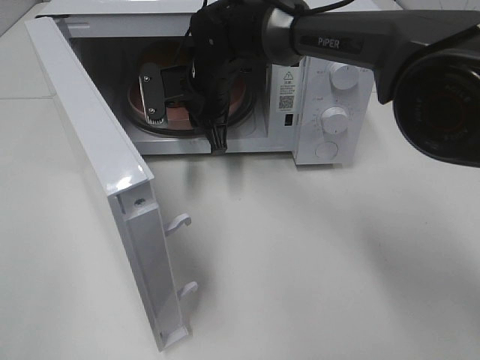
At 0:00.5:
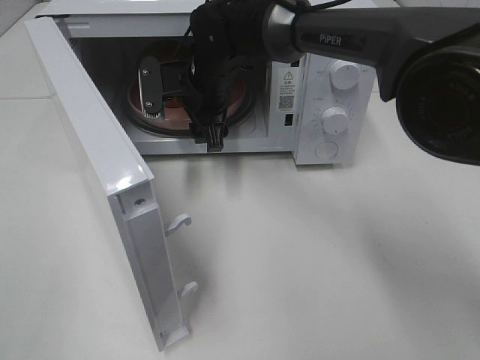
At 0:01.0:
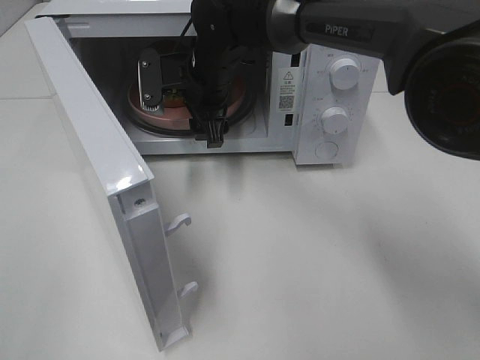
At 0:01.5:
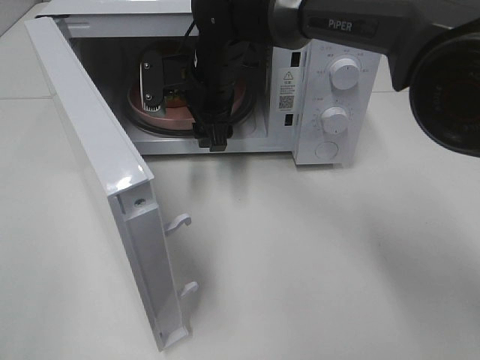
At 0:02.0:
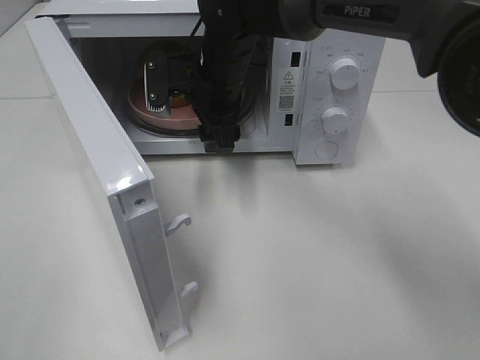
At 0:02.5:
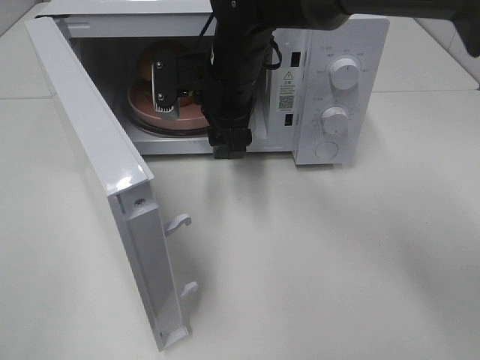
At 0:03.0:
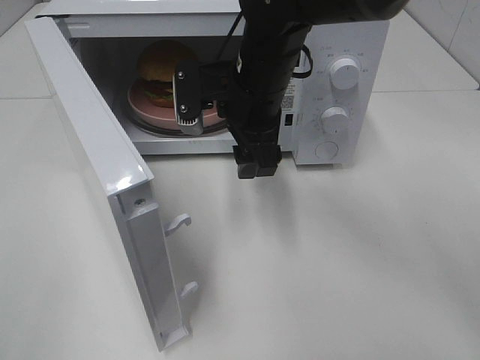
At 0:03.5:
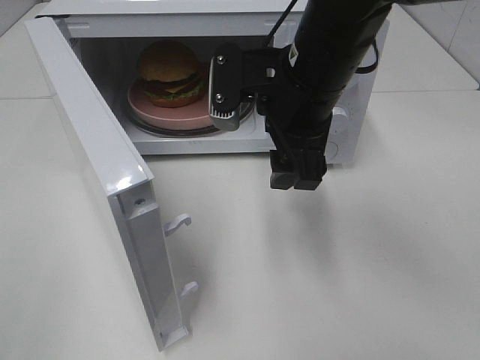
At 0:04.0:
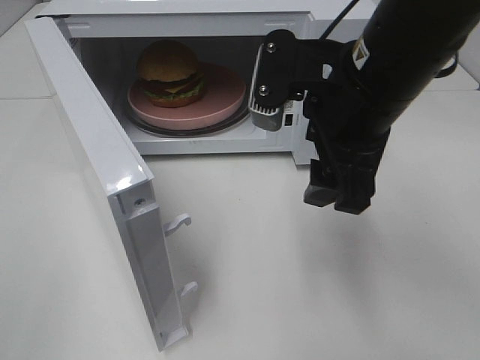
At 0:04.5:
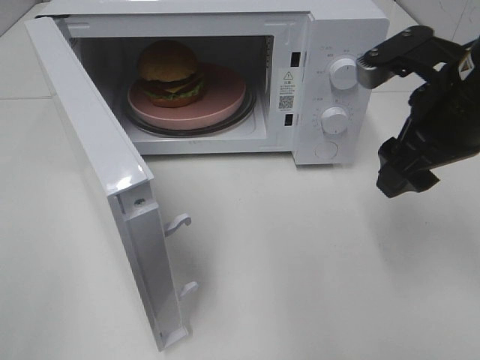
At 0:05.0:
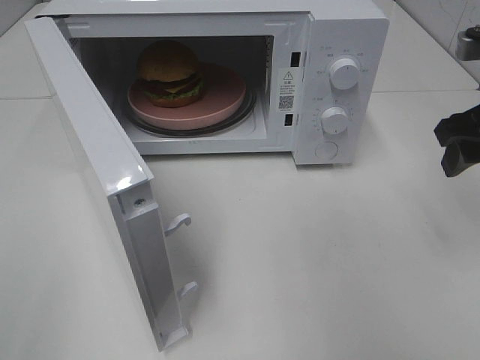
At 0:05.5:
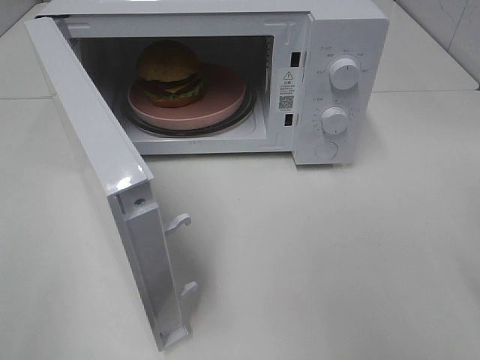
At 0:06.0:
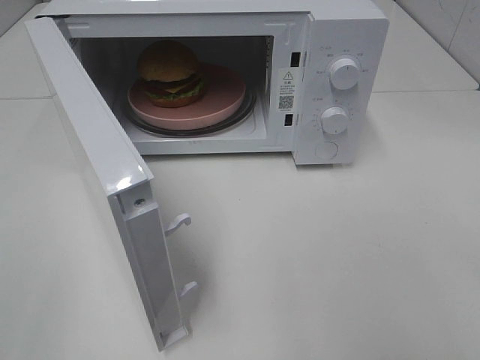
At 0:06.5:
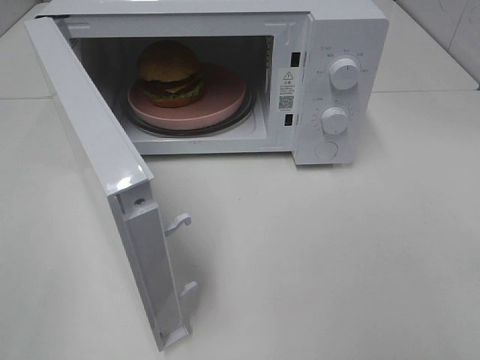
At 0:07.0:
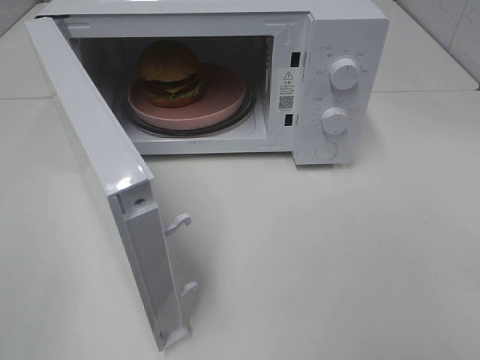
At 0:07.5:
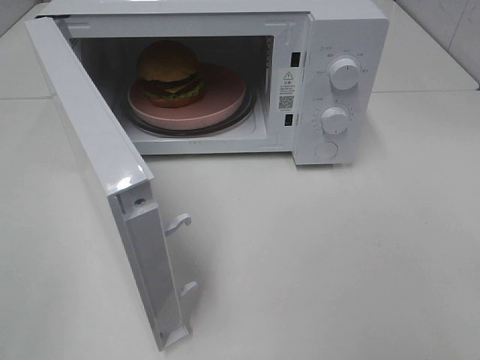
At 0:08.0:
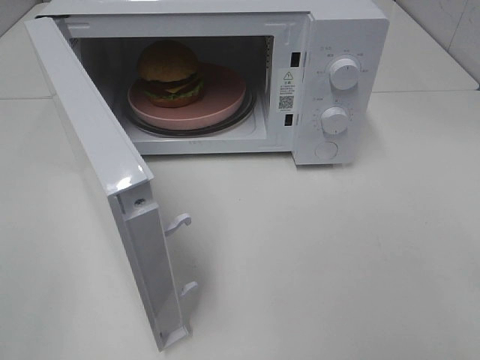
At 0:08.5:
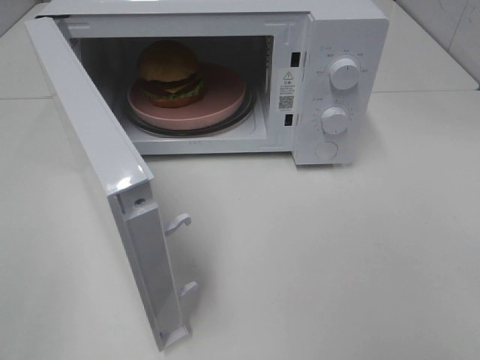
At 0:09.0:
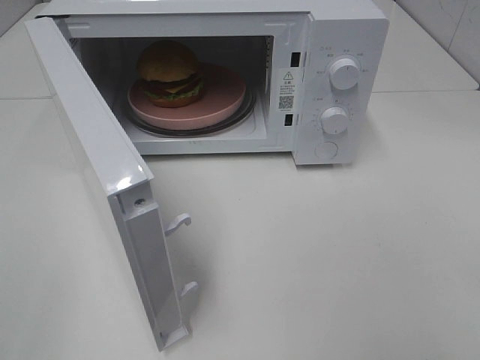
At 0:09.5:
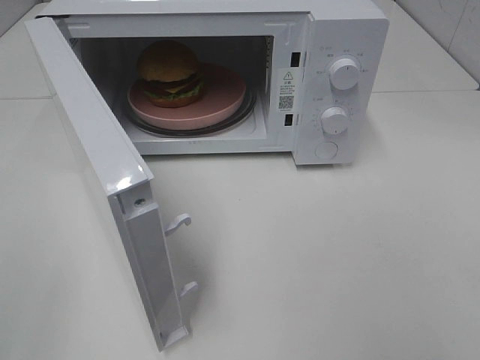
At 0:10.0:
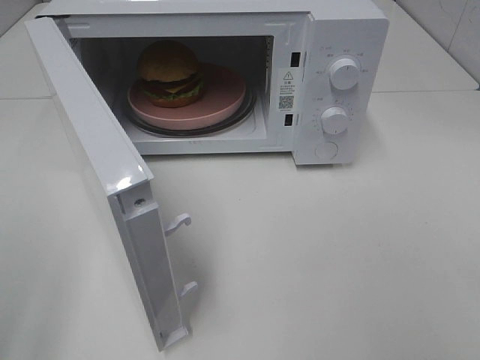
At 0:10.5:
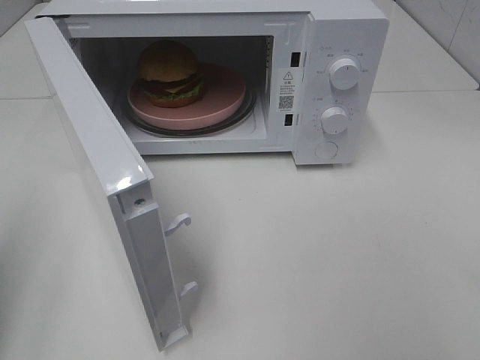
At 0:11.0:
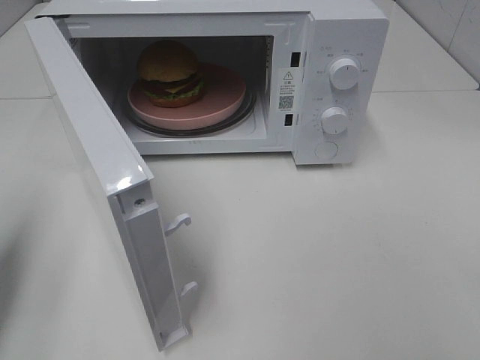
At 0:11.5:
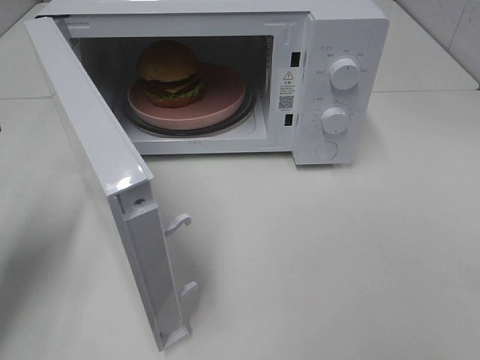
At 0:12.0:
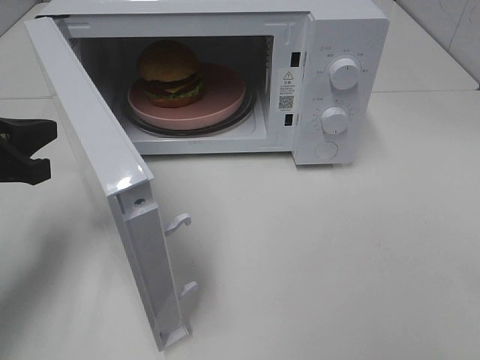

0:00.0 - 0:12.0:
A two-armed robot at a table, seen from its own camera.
Task of the whole recording: Heat the burger.
0:00.0 - 0:02.0: The right gripper opens its fingers.
0:02.0 - 0:04.0: The right gripper is displaced backward, to the right and upward by some 20 cm.
0:04.0 - 0:06.0: The right gripper is displaced backward and to the right by about 25 cm.
0:10.0 - 0:12.0: The left gripper is displaced forward and downward by approximately 25 cm, and closes.

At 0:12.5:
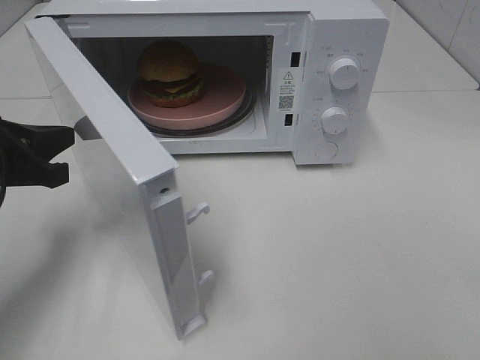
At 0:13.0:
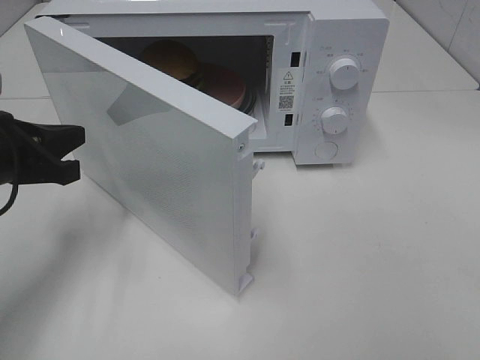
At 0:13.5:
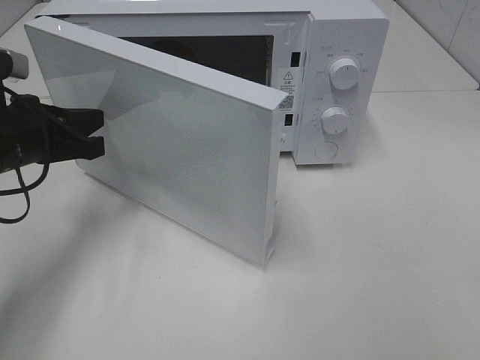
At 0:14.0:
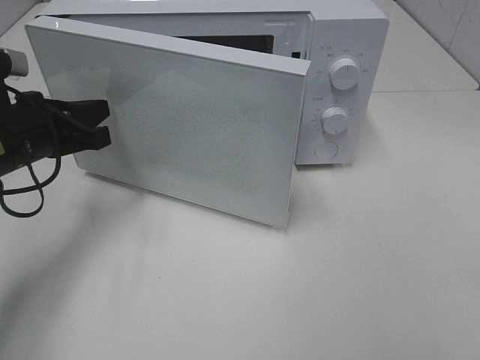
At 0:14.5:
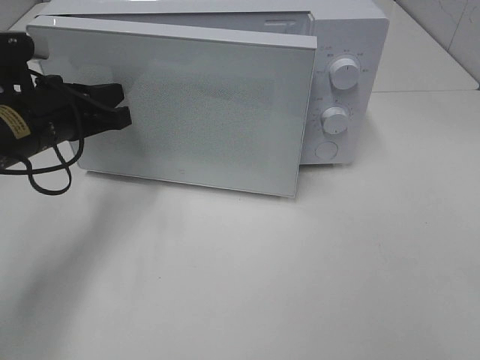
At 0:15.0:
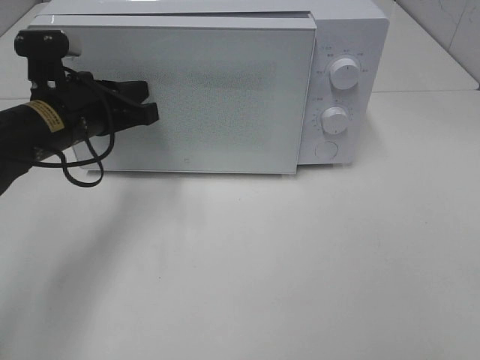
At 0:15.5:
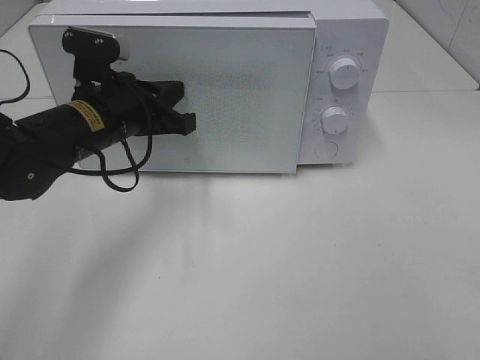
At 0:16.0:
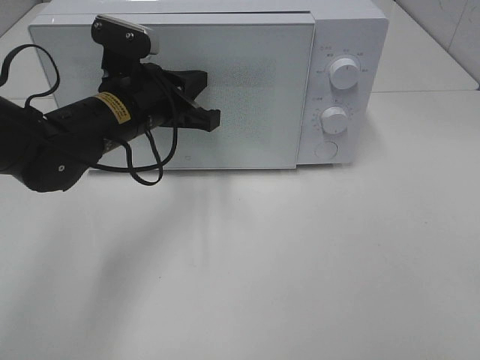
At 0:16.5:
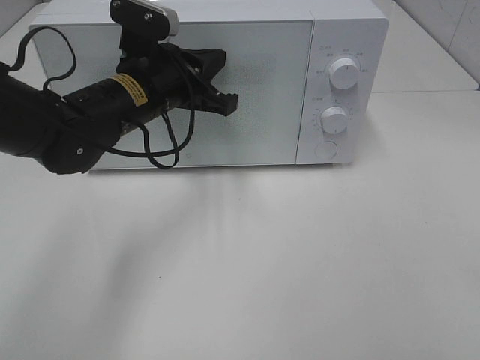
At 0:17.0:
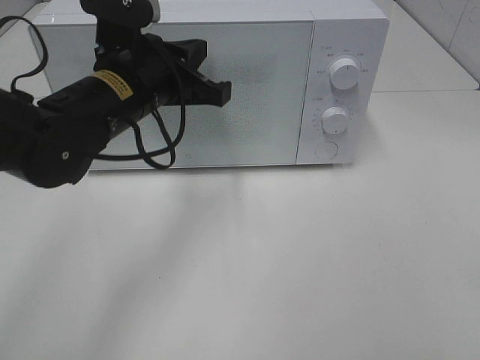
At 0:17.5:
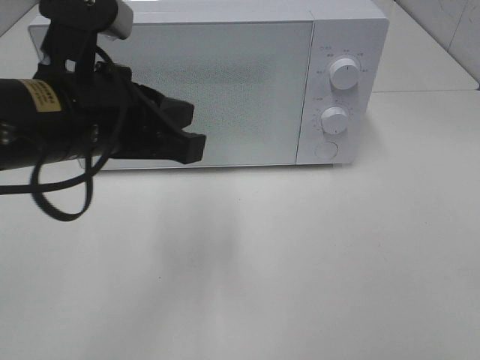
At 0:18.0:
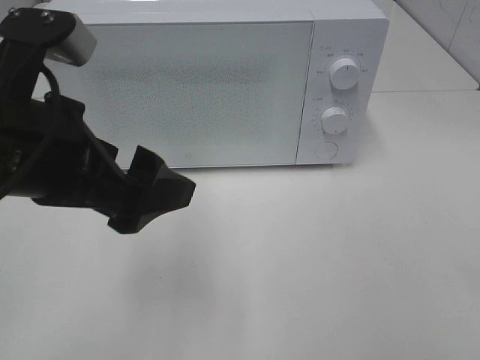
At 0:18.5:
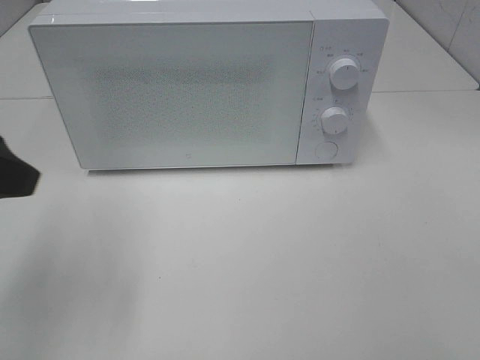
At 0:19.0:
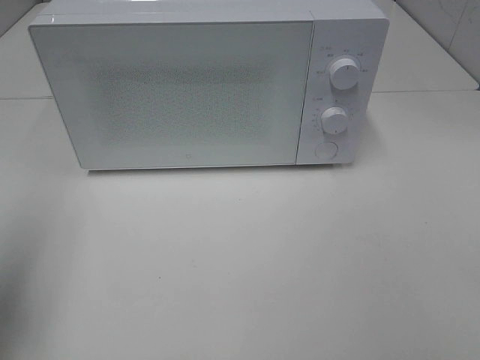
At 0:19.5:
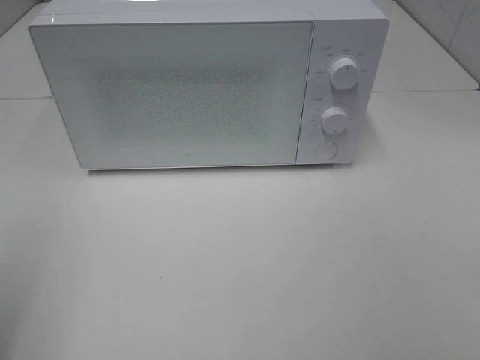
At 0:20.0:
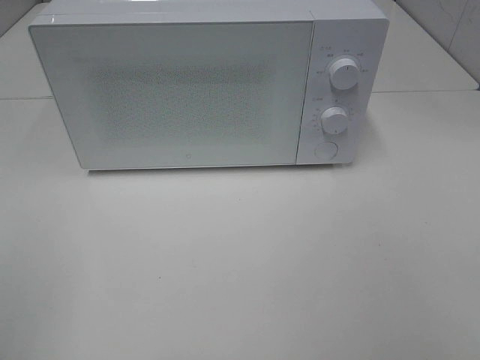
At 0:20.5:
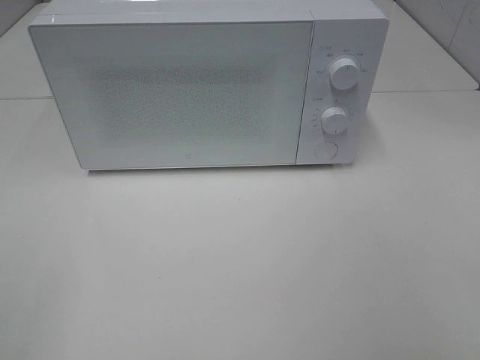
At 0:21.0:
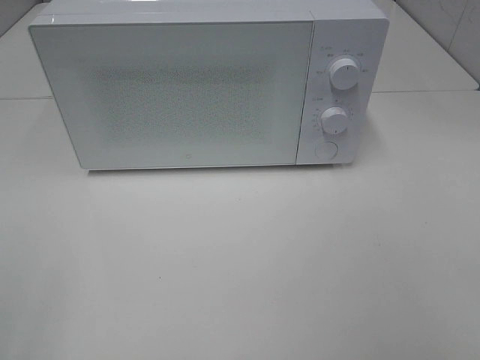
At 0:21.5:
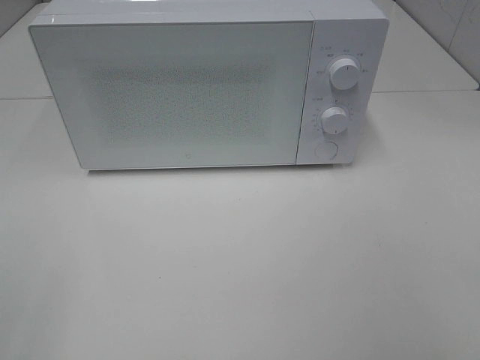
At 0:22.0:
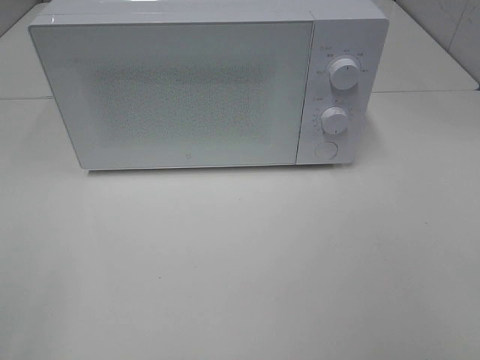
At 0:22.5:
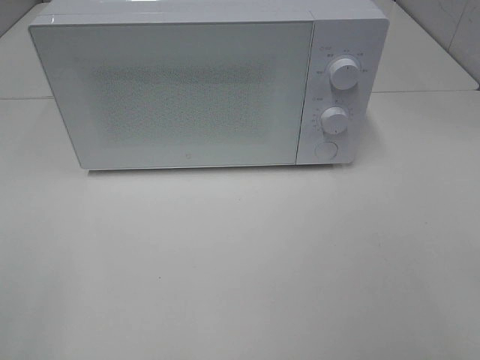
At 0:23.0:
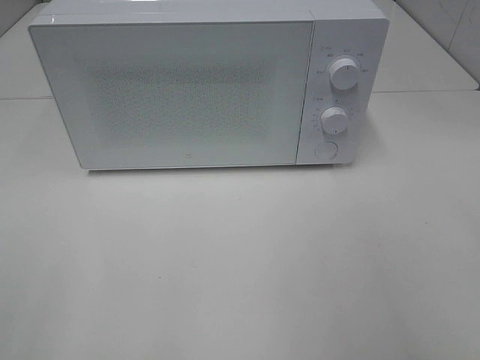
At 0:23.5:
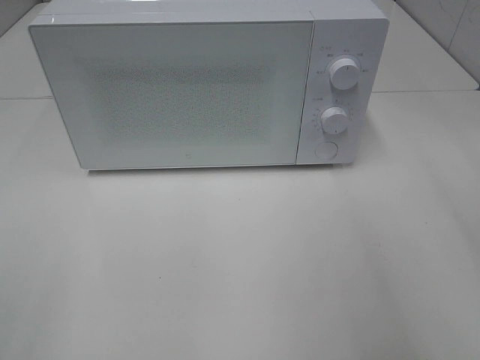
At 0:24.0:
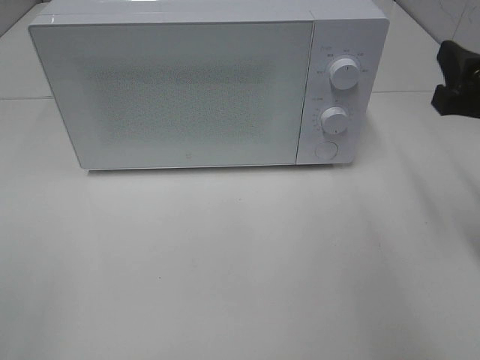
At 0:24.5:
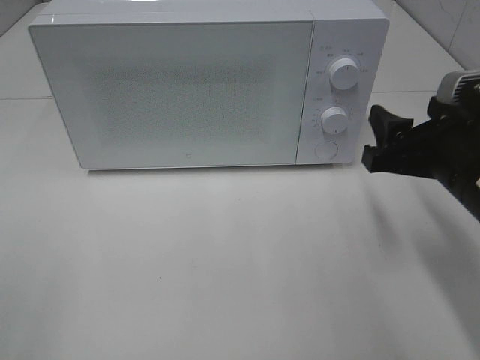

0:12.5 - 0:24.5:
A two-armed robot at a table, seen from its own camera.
Task of the whole recording: Heat the burger.
Step, 0:12.5 - 0:17.5: Left hand: close the microwave door.
0:12.5 - 0:14.5: The left gripper shifts some 5 cm forward.
0:14.5 - 0:16.5: The left gripper heads to the right, covering roughly 10 cm.
0:16.5 - 0:18.5: The left gripper moves backward, to the left and upward, approximately 25 cm, and opens.
0:18.5 - 0:20.5: The left gripper travels backward by about 20 cm.
0:20.5 - 0:22.5: The two grippers keep their place.
0:22.5 - 0:24.5: The right gripper heads forward and downward, covering approximately 25 cm.

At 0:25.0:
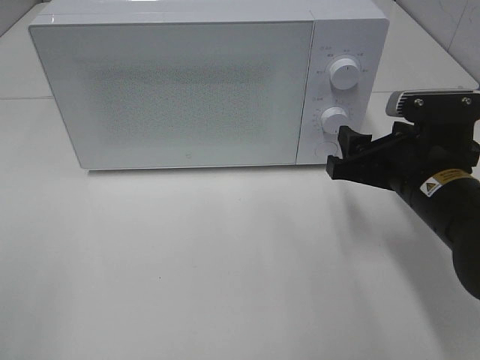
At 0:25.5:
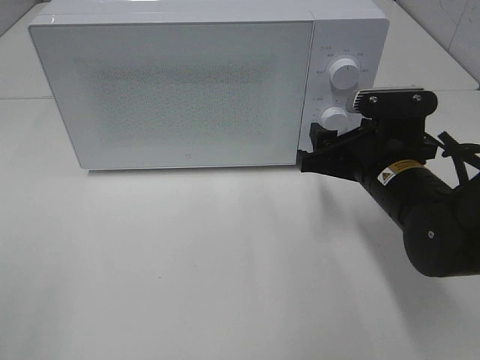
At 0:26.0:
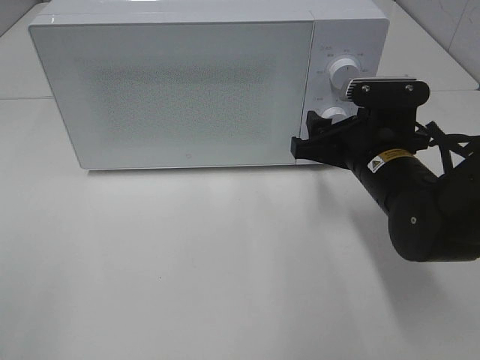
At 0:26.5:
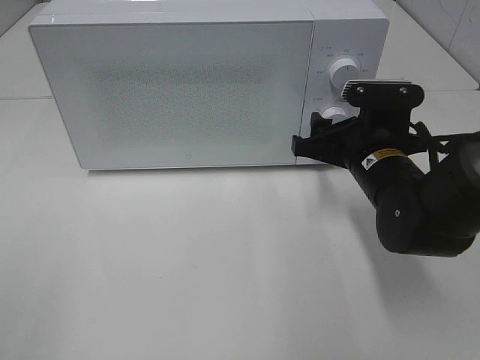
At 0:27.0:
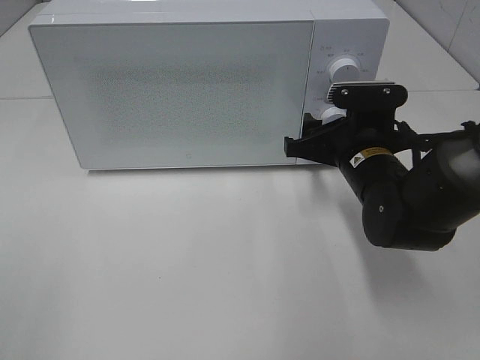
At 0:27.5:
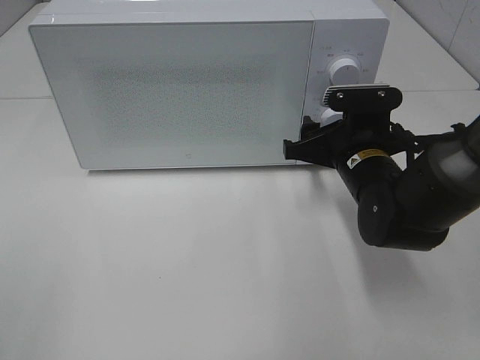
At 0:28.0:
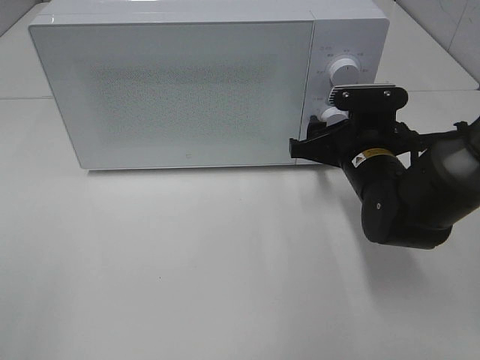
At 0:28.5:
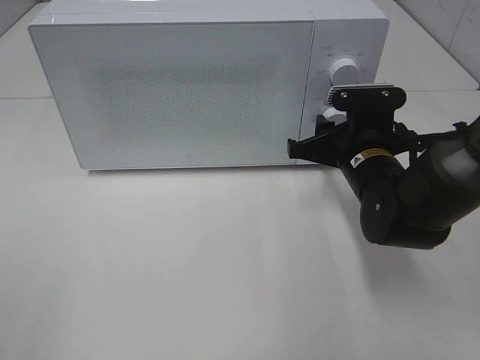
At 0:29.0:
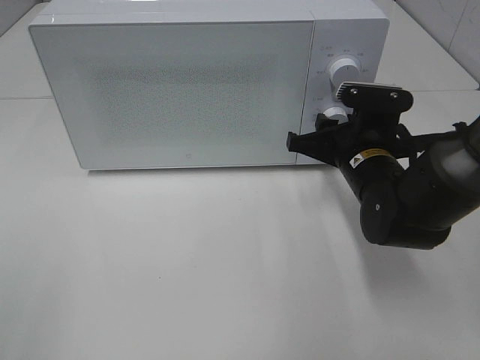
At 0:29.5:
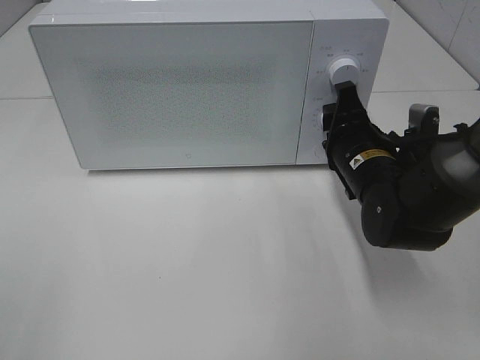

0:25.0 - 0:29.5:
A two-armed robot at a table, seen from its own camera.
Task of the whole recording: Heat the burger.
0:25.0 - 0:27.0: The right gripper travels forward by some 5 cm.
